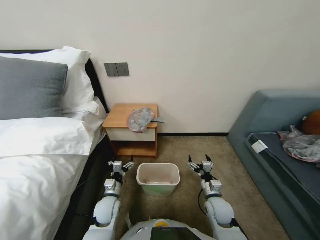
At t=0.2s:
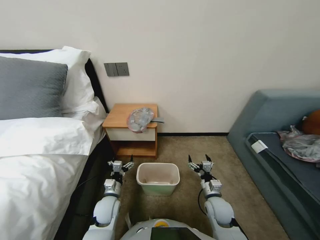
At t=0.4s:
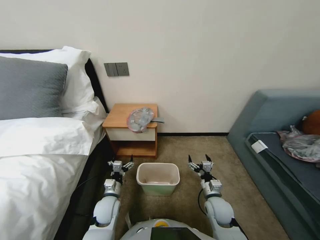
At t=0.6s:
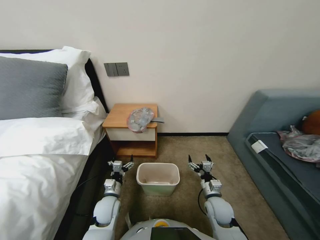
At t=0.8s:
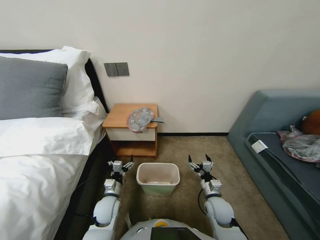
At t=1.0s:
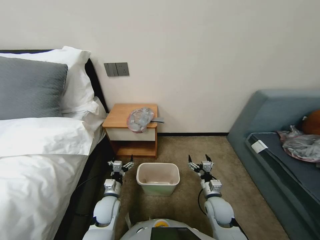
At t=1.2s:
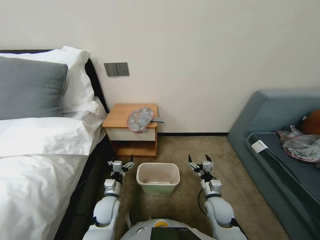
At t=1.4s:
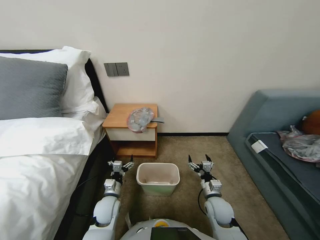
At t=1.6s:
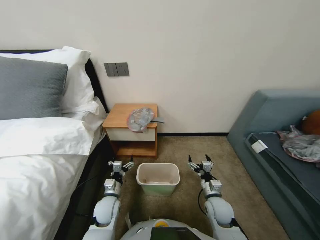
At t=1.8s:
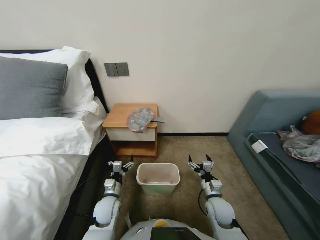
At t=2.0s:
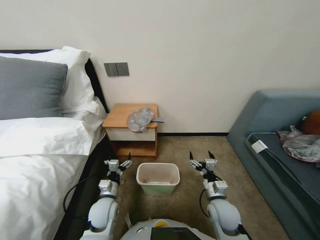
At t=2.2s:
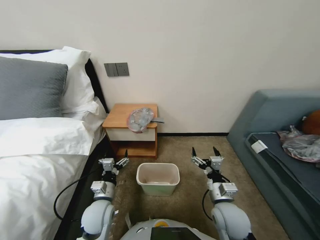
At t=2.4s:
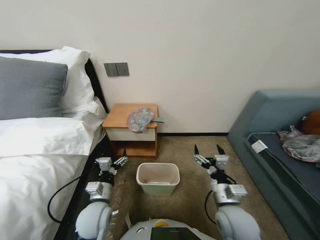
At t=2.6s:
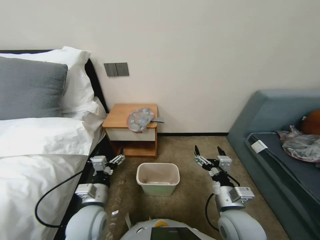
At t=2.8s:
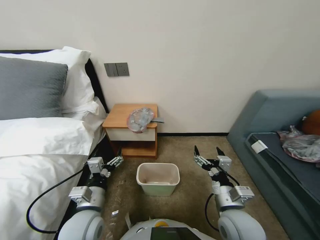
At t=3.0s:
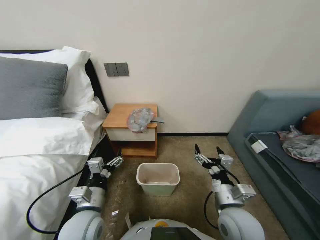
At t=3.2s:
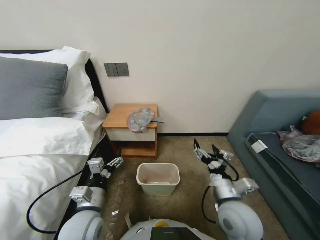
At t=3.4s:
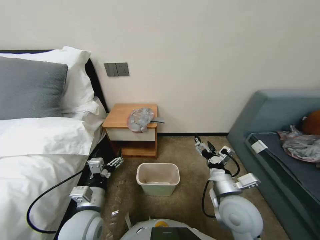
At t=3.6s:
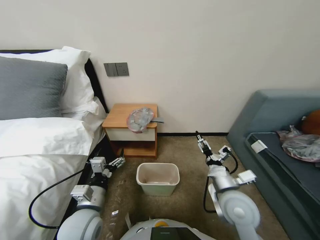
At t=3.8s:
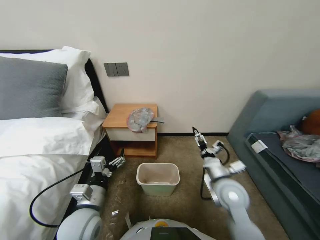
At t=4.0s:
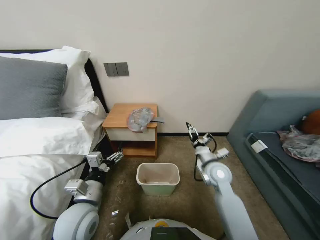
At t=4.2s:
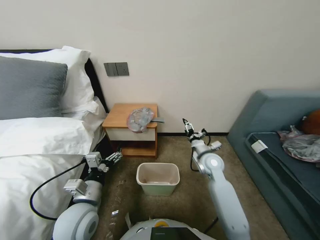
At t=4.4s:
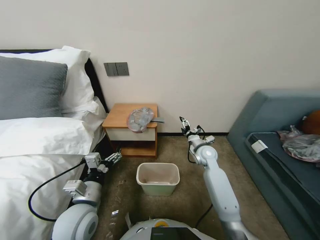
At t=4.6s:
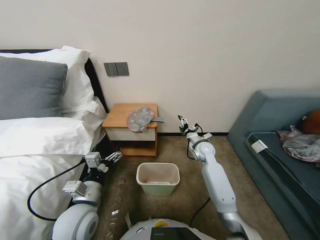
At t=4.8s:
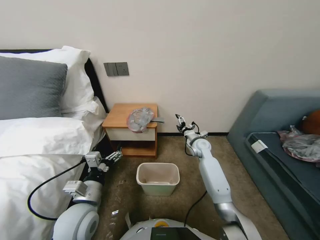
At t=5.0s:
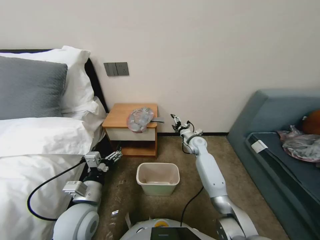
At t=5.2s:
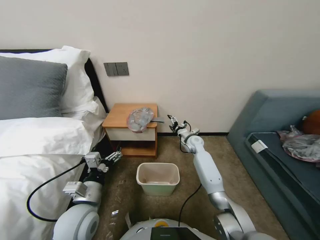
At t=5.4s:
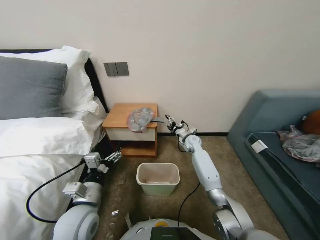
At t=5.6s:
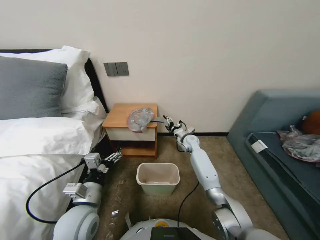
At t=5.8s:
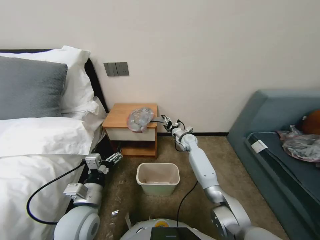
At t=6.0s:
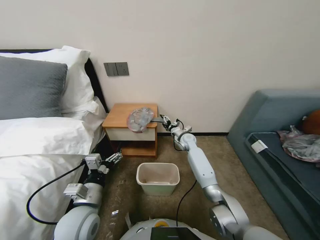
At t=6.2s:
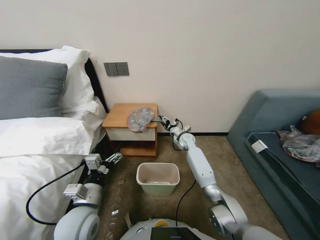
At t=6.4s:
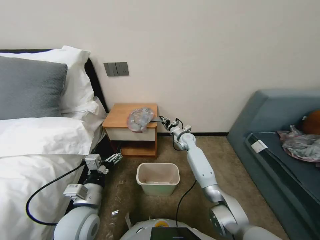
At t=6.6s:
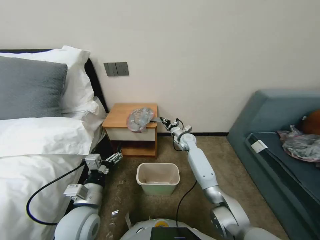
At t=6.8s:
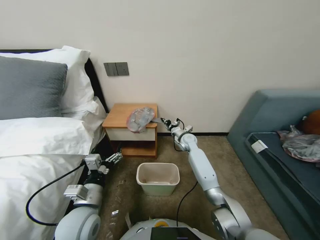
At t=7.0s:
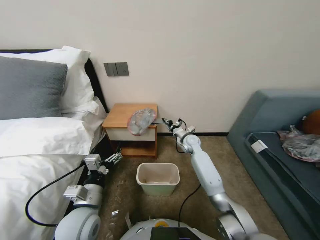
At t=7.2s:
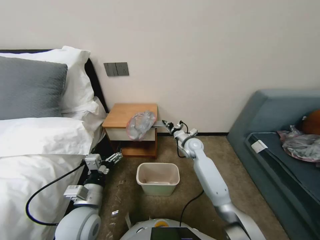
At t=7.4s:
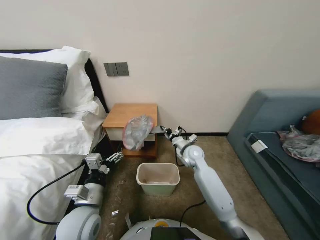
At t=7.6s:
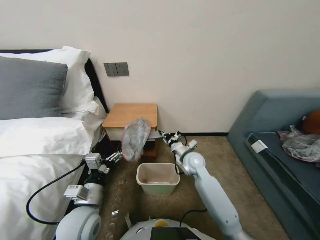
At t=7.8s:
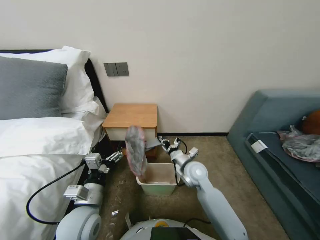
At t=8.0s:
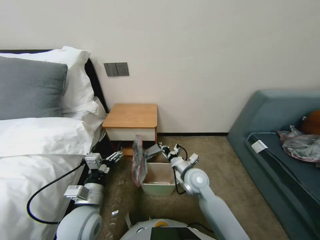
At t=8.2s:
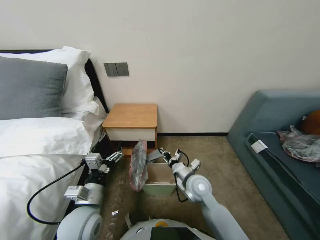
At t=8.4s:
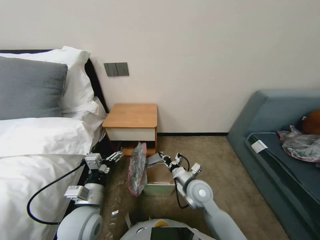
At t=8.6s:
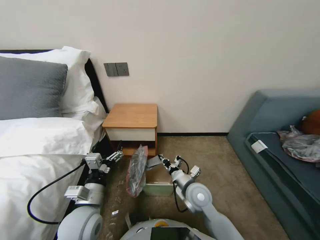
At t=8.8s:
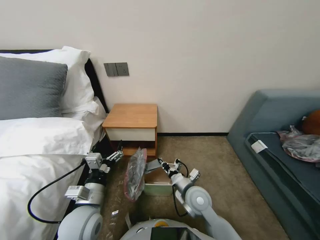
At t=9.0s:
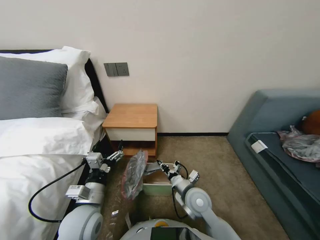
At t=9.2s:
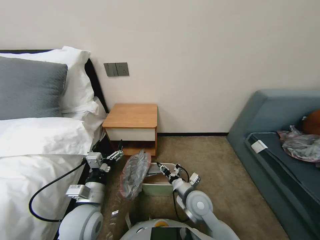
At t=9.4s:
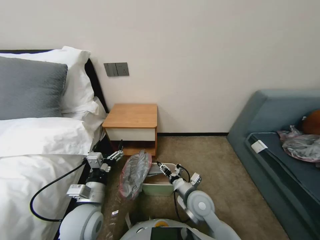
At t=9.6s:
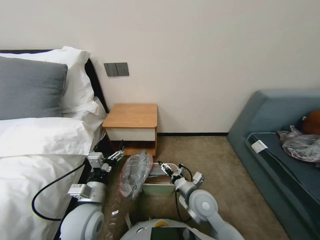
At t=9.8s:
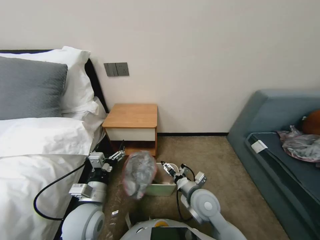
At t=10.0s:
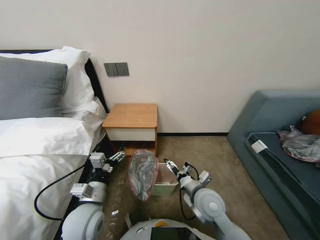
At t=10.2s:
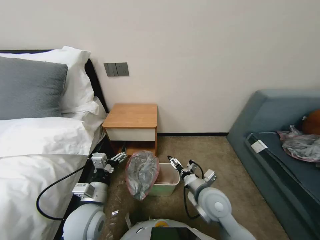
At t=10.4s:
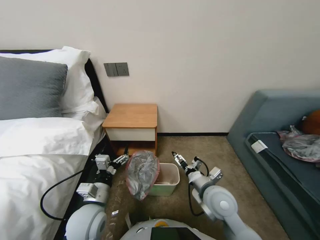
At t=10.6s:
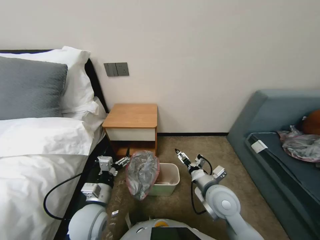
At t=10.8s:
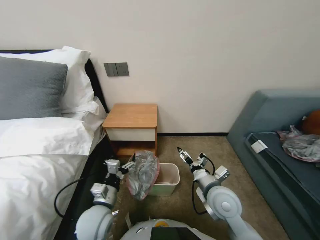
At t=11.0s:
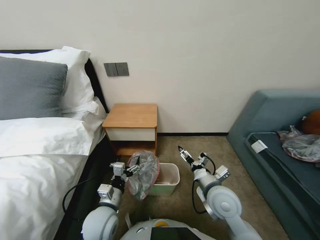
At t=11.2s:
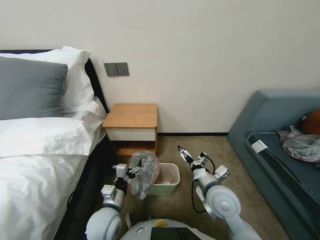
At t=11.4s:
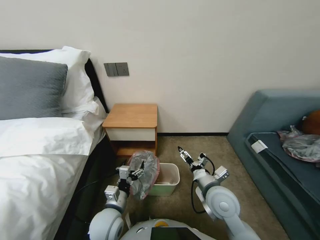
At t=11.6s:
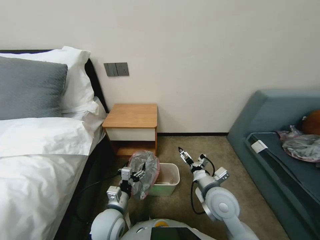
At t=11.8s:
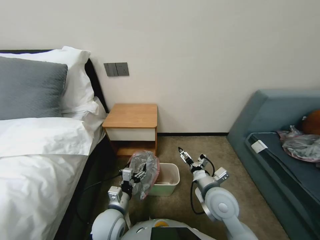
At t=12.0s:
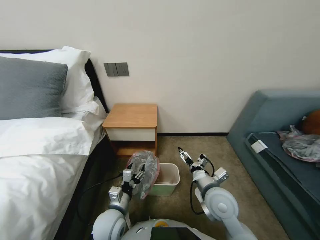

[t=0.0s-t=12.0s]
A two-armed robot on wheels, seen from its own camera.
Task of the whole recording: Pick up the garbage bag from the table and place it over the trash can.
t=1.6s to t=3.0s: The two grippers go approximately 15 cm upward and backward.
t=3.0s to t=4.4s: The right gripper moves forward, about 25 cm.
t=4.4s to t=6.0s: The right gripper shifts roughly 15 cm forward.
t=6.0s to t=7.6s: The right gripper is displaced backward by roughly 15 cm, and closes.
t=7.6s to t=9.0s: The right gripper moves backward, about 15 cm.
t=9.0s to t=10.4s: The right gripper shifts about 5 cm upward, and opens.
t=10.4s to t=12.0s: The left gripper travels downward by about 5 cm.

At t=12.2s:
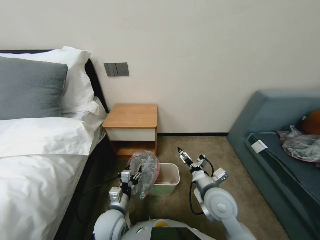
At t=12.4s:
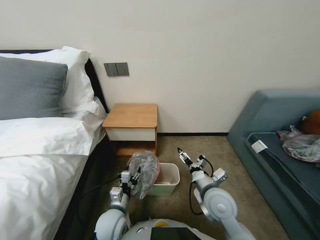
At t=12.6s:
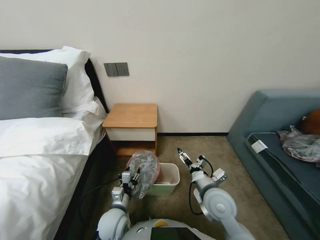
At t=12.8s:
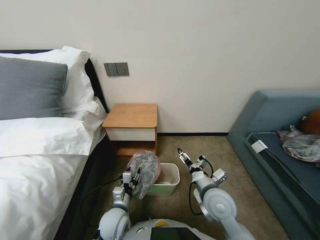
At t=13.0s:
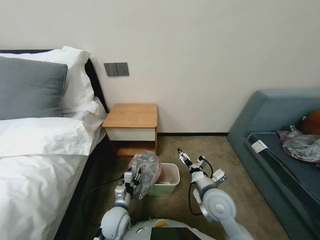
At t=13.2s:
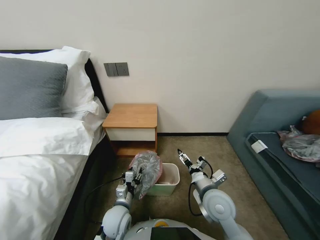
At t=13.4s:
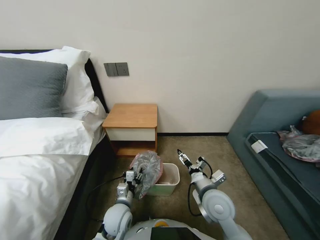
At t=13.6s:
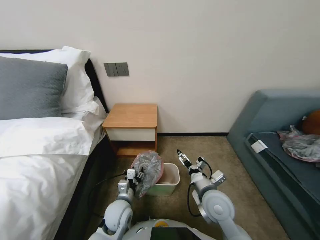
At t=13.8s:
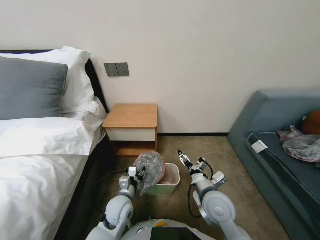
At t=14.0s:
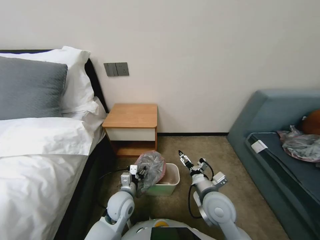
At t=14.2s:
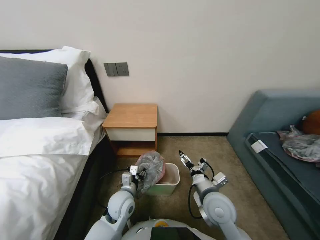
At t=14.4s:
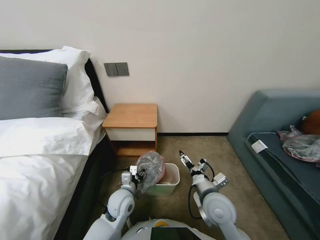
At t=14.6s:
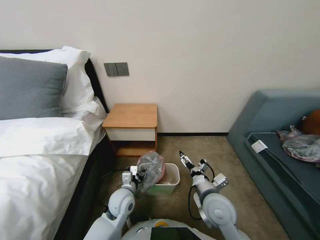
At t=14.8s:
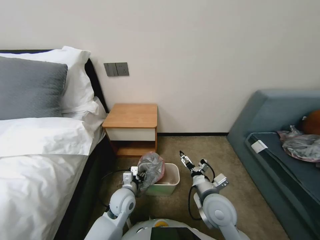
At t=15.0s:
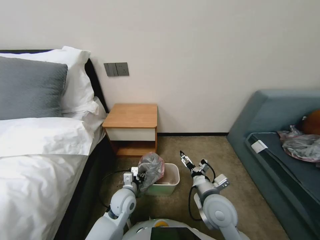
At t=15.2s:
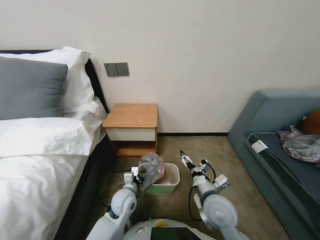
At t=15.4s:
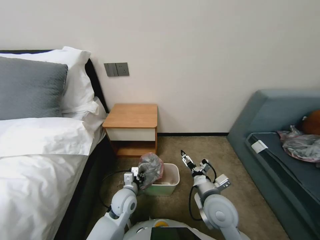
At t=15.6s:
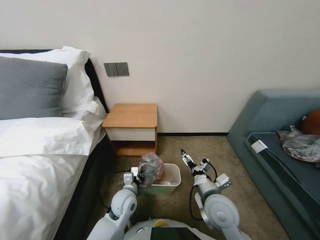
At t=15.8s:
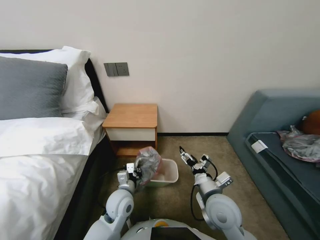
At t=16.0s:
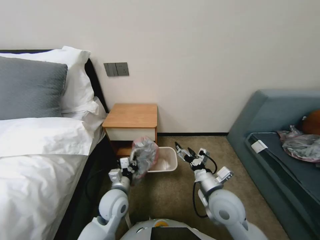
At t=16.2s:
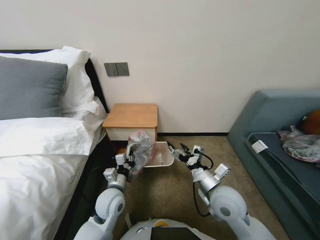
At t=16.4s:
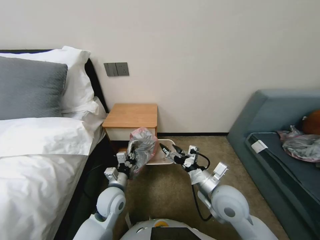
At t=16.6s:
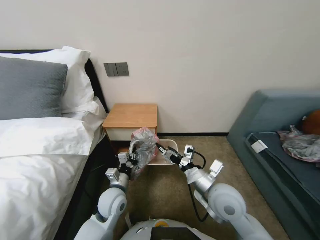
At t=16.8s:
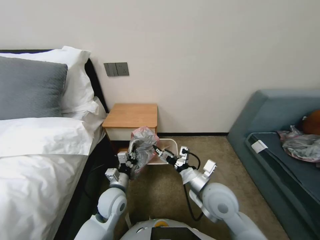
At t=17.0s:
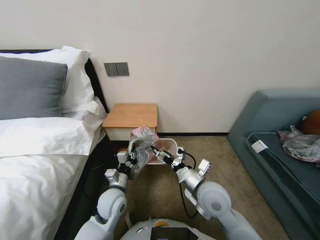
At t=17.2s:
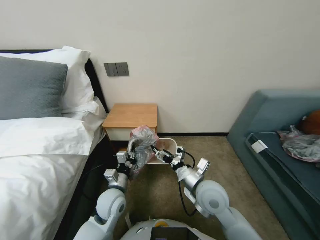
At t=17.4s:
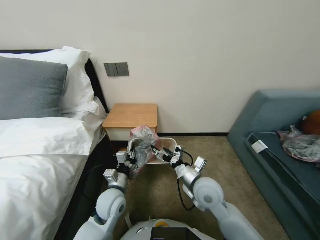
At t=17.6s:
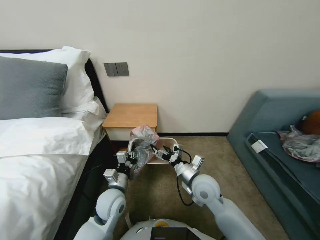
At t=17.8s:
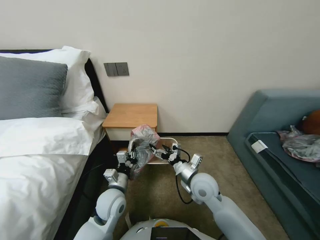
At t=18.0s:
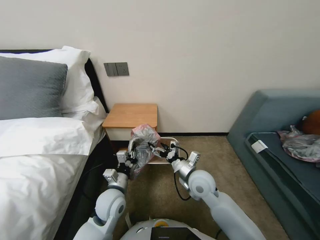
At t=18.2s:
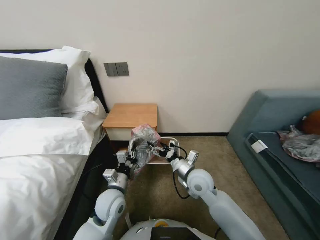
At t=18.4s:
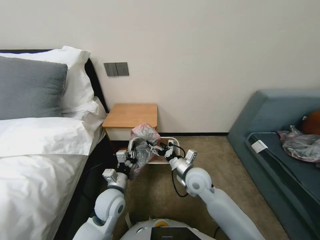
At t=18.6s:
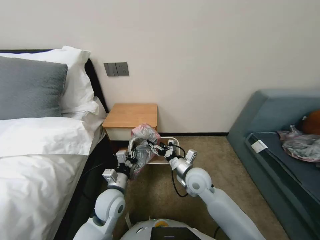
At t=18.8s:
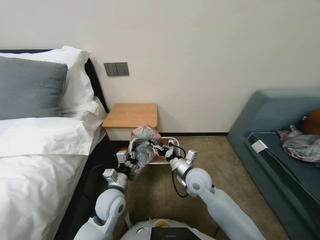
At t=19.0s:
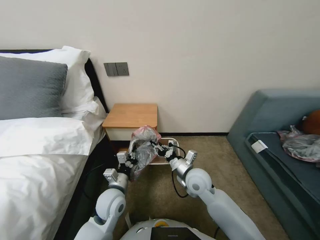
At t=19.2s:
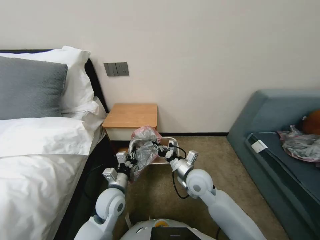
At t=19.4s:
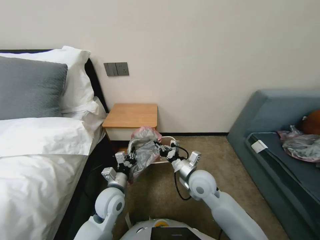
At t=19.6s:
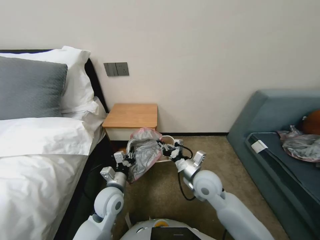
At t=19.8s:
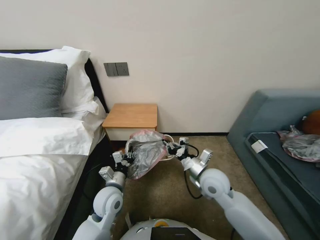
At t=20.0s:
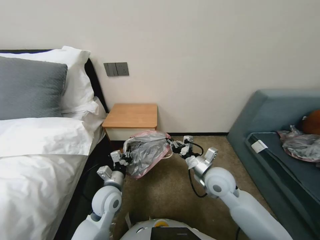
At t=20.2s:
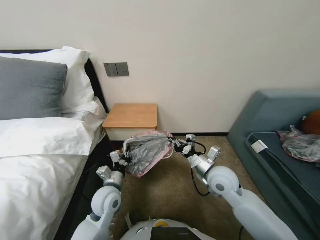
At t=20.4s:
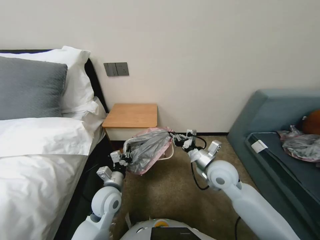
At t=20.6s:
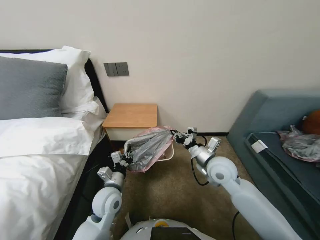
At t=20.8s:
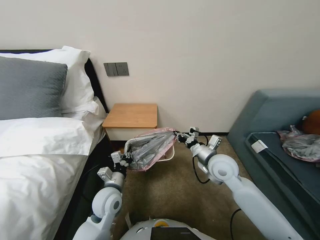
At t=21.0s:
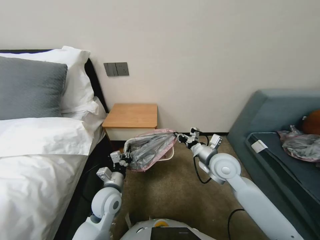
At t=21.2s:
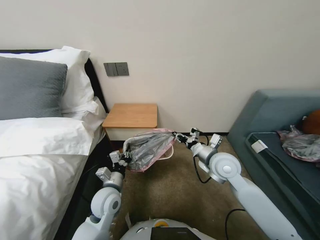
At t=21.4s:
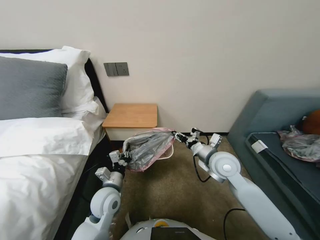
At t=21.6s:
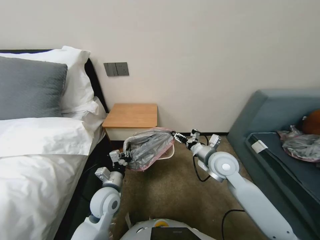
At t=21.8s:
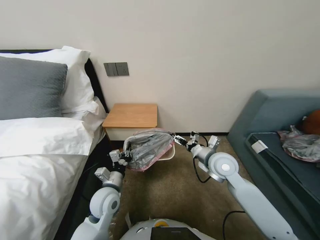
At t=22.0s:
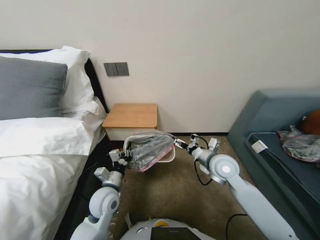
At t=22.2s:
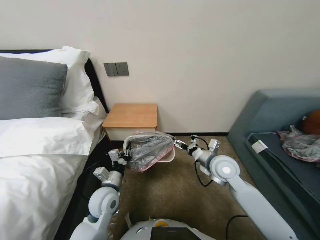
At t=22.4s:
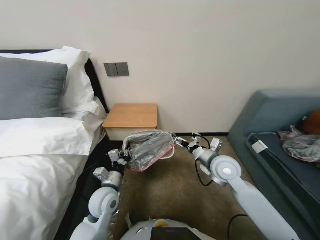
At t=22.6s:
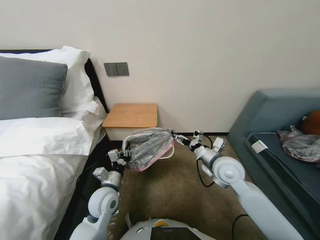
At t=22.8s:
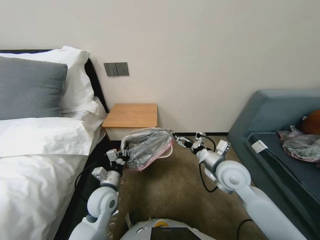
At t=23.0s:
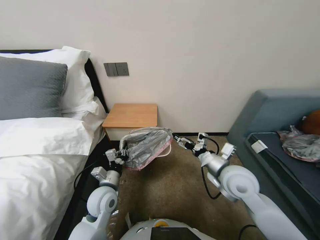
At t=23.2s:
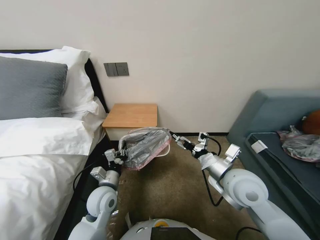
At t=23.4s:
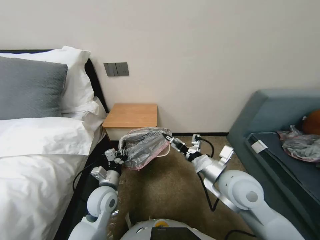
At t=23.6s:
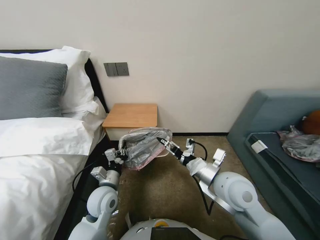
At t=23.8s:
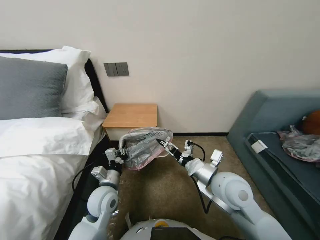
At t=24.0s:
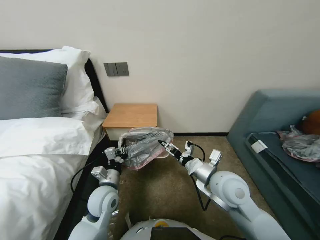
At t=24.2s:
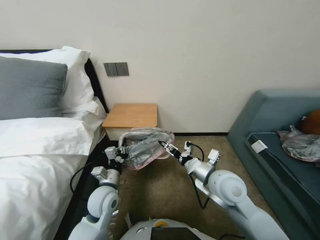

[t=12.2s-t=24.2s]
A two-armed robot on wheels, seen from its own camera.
Task of the whole recording: Pick up the garbage bag from the table and place it over the trash can.
t=12.2s to t=13.8s: The grippers stay close to where they were, moving slightly.
t=13.8s to t=15.2s: There are only small adjustments of the grippers.
t=15.2s to t=16.6s: The left gripper changes place by approximately 5 cm, and closes up, while the right gripper shifts by some 5 cm.
t=16.6s to t=18.2s: The right gripper moves forward, about 5 cm.
t=18.2s to t=19.8s: The right gripper closes.
t=19.8s to t=21.2s: The right gripper ends up roughly 10 cm from where it was.
t=21.2s to t=22.6s: The right gripper opens.
t=22.6s to t=24.2s: The right gripper moves backward, roughly 5 cm.
